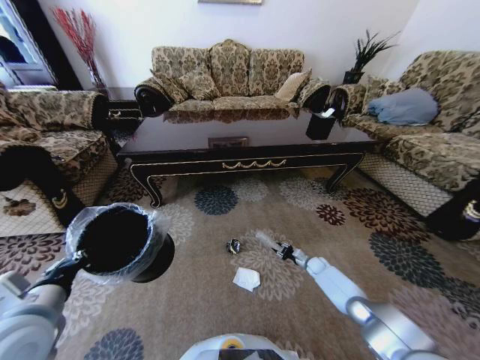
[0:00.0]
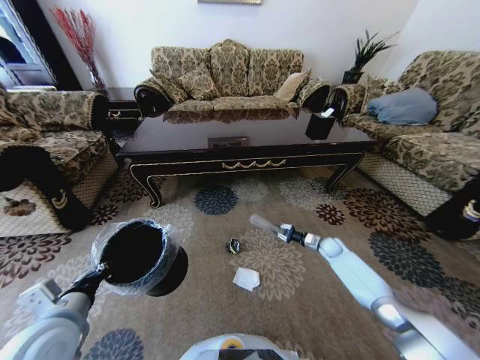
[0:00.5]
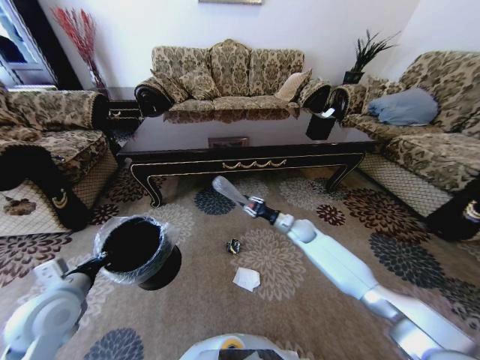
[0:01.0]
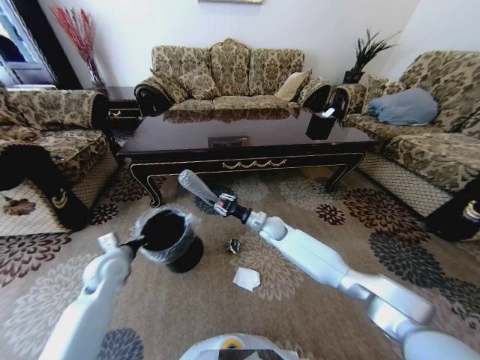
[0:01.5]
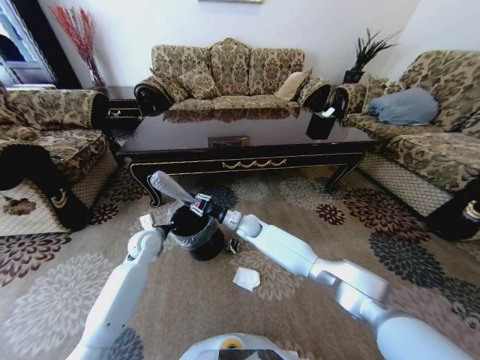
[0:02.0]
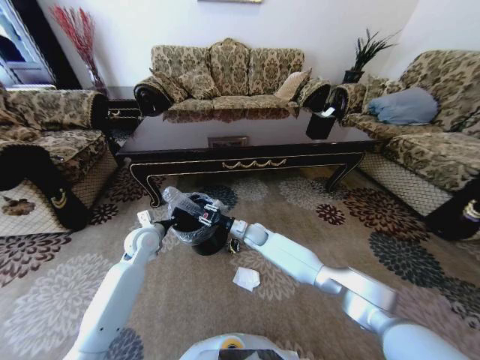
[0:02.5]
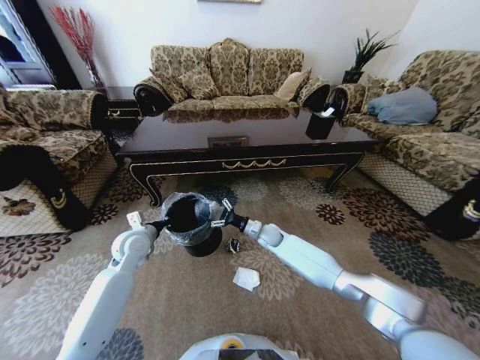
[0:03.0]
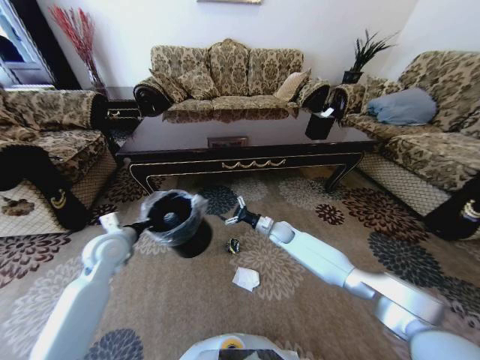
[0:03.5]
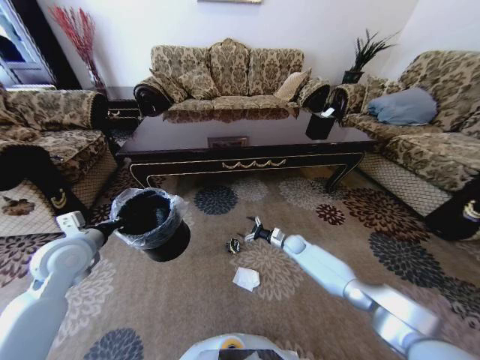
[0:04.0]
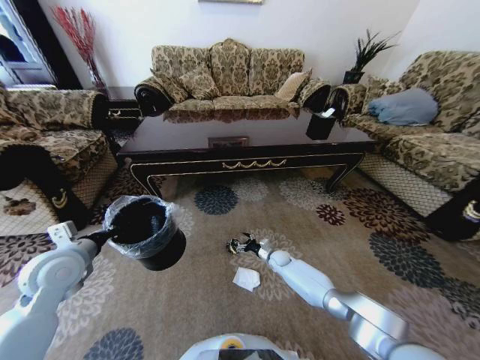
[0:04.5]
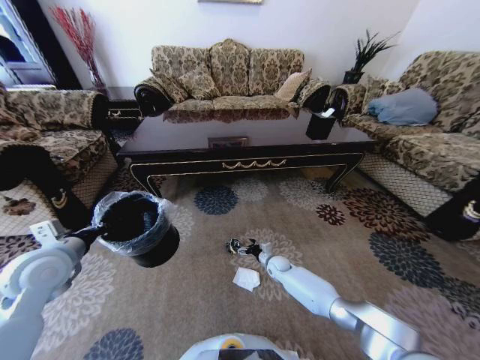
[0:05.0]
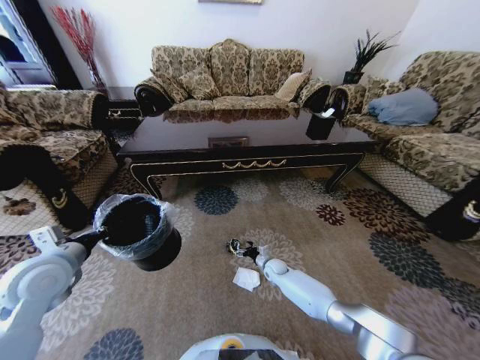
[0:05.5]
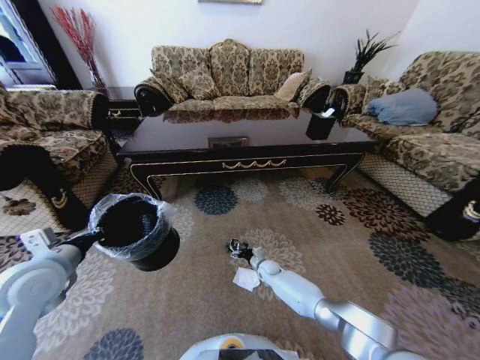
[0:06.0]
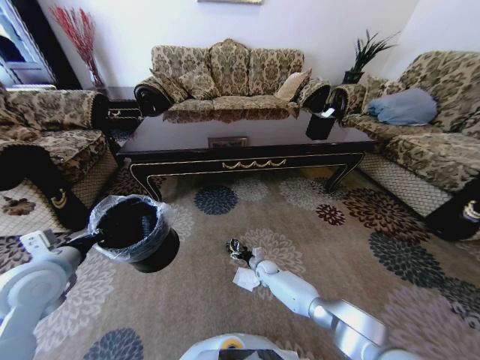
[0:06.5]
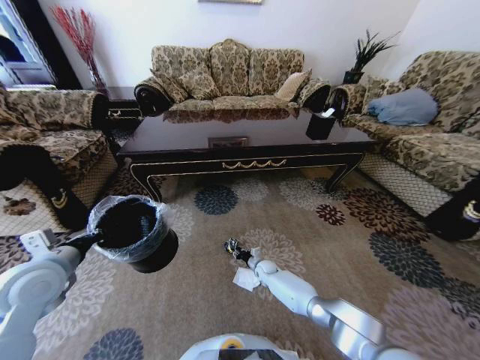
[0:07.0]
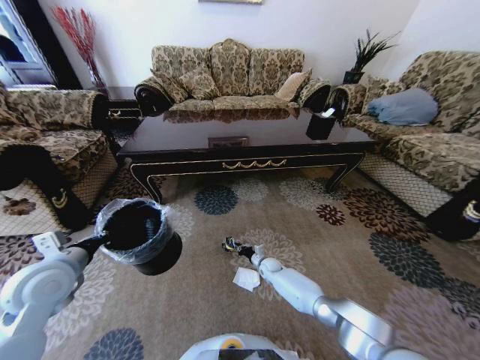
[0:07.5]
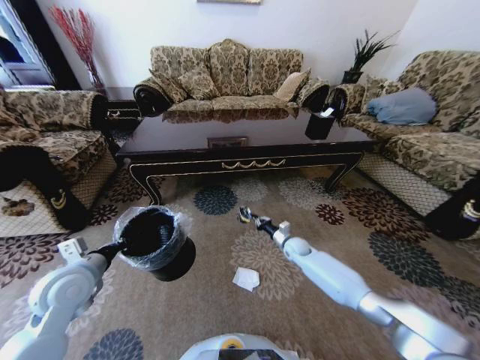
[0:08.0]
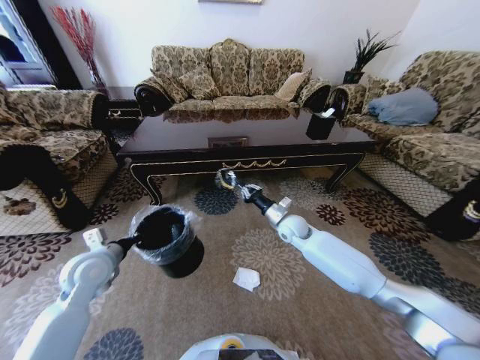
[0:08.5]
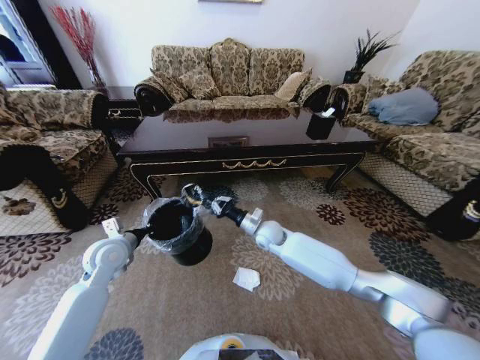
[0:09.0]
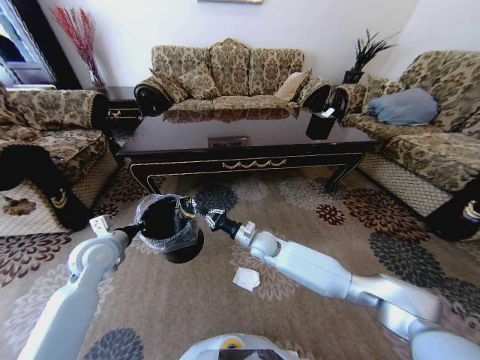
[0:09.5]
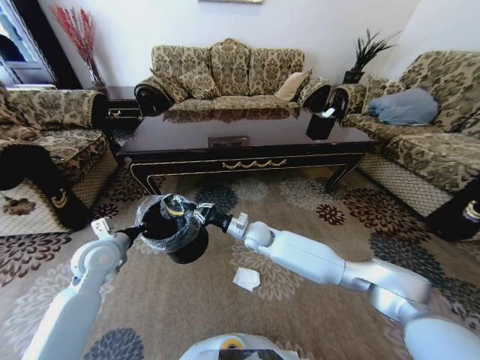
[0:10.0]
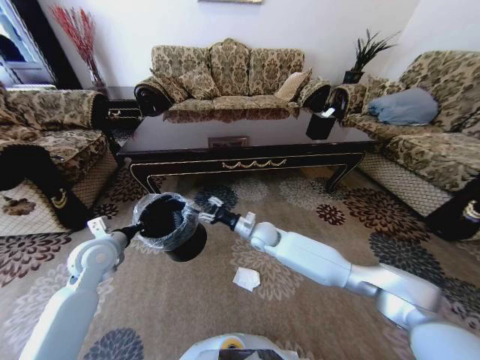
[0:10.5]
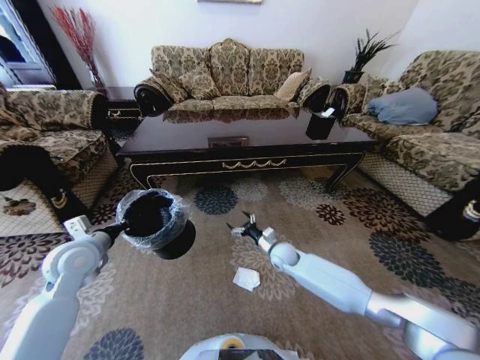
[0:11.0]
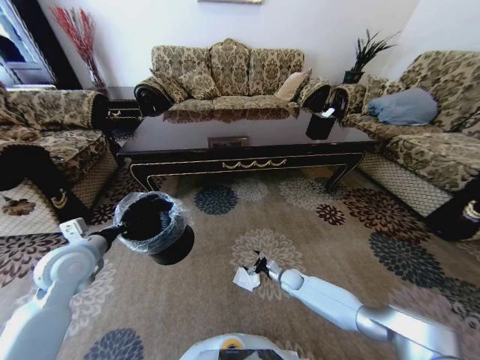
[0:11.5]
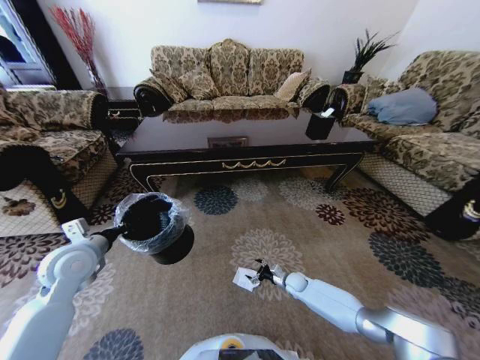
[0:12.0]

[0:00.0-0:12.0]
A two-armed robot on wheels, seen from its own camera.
Task of the whole recording: Move to the front of the table and pick up the trash from the floor, then place it into the trash bin.
0:00.0 to 0:02.0: The right gripper travels to the left and upward by roughly 40 cm, while the left gripper goes approximately 30 cm forward and downward.
0:02.0 to 0:04.0: The right gripper goes about 25 cm to the right and downward, and opens. The left gripper travels upward, backward and to the left by about 20 cm.
0:04.0 to 0:06.0: The left gripper travels backward by roughly 5 cm. Meanwhile the right gripper shifts about 15 cm to the left, downward and backward.
0:06.0 to 0:08.0: The left gripper ends up about 5 cm from where it was. The right gripper shifts roughly 15 cm upward and to the right, and closes up.
0:08.0 to 0:10.0: The left gripper moves forward, roughly 10 cm, while the right gripper is displaced to the left and upward by about 25 cm.
0:10.0 to 0:12.0: The right gripper goes some 35 cm downward and to the right, and opens.

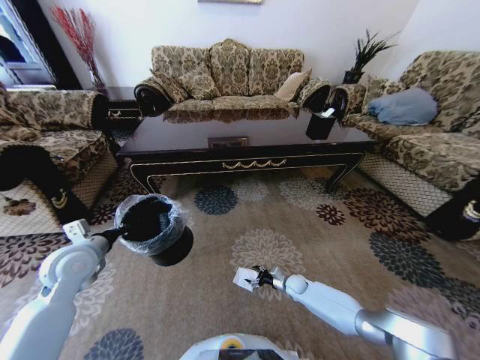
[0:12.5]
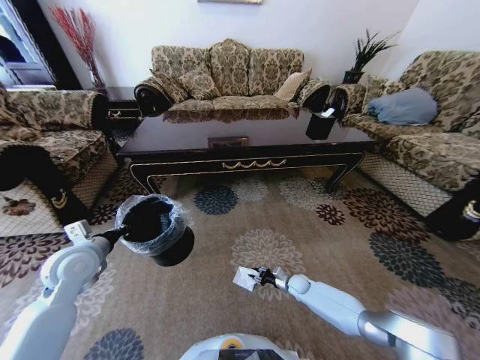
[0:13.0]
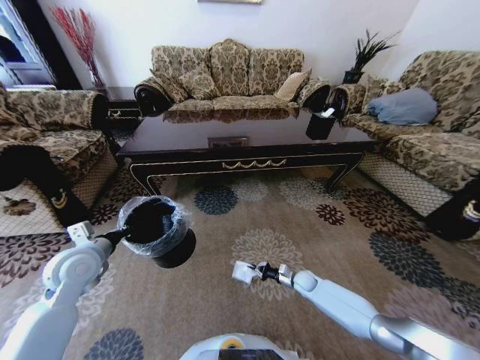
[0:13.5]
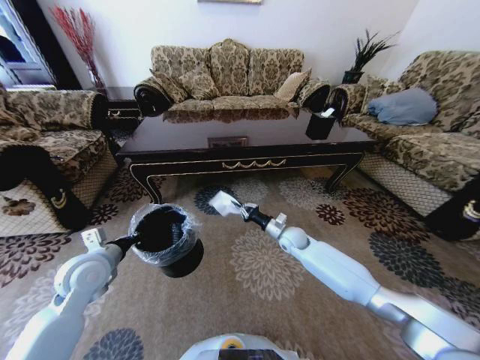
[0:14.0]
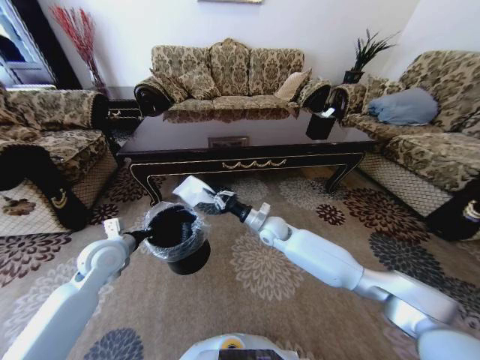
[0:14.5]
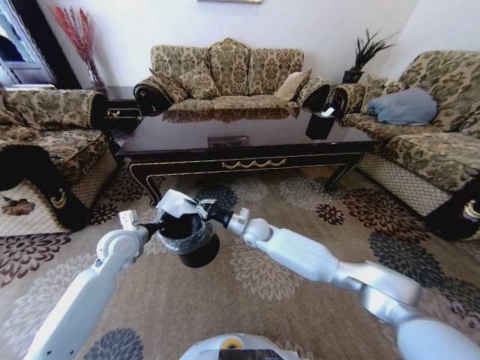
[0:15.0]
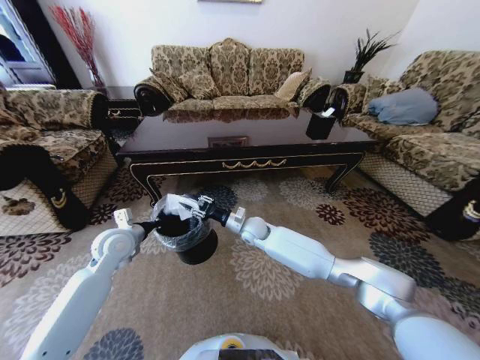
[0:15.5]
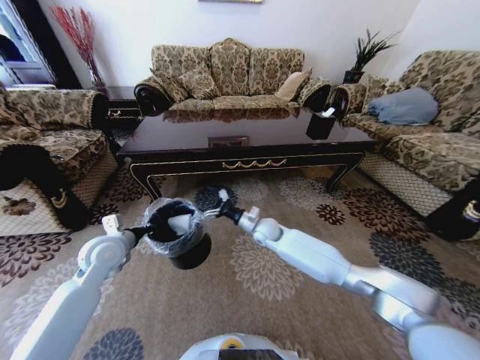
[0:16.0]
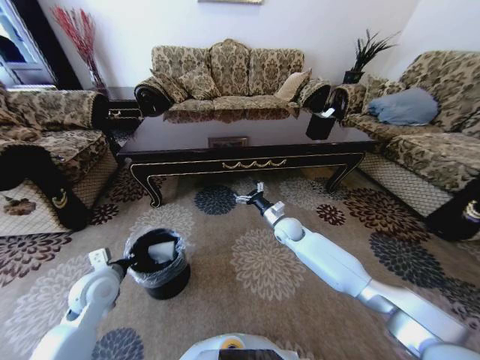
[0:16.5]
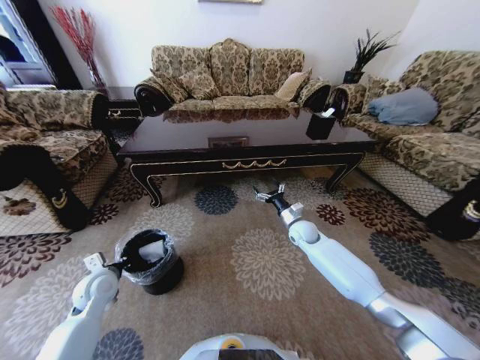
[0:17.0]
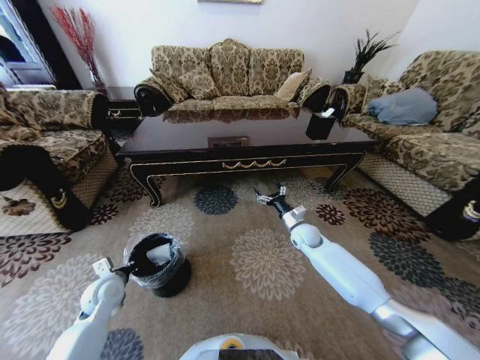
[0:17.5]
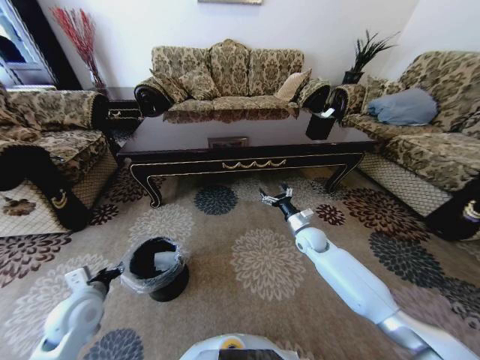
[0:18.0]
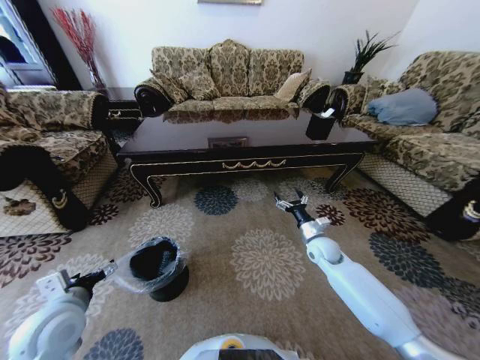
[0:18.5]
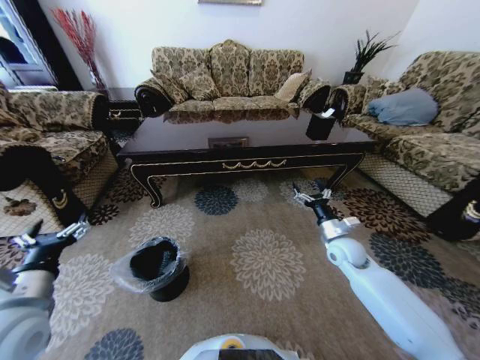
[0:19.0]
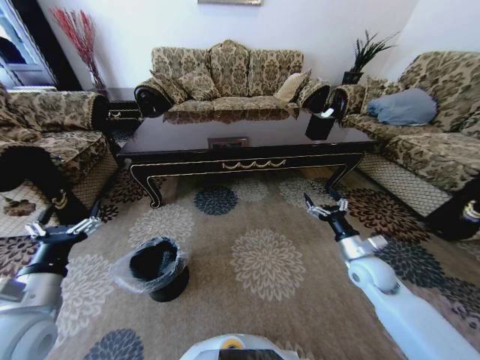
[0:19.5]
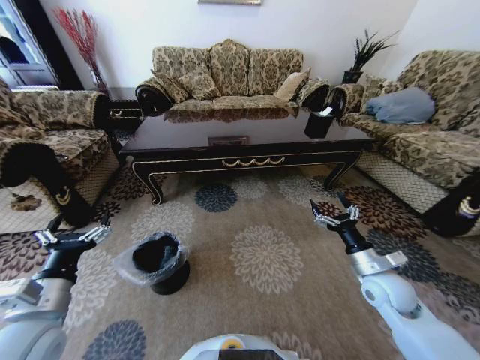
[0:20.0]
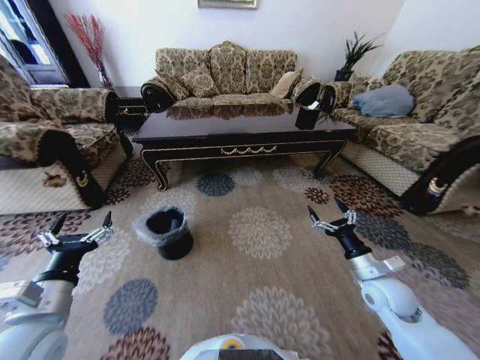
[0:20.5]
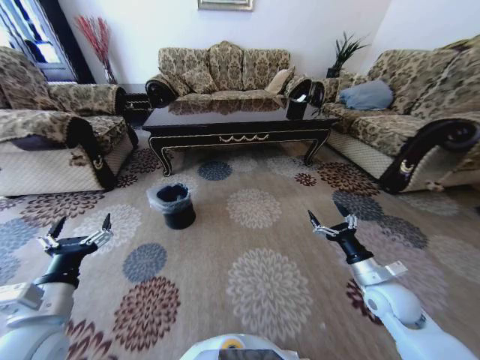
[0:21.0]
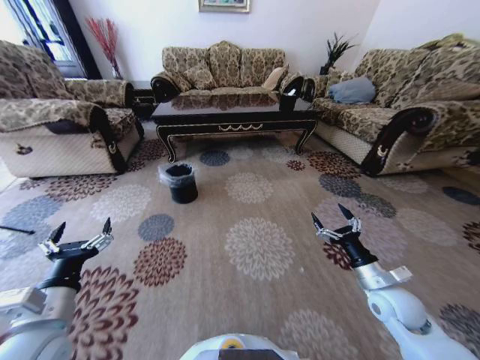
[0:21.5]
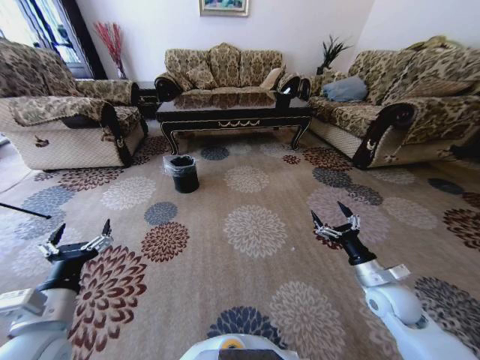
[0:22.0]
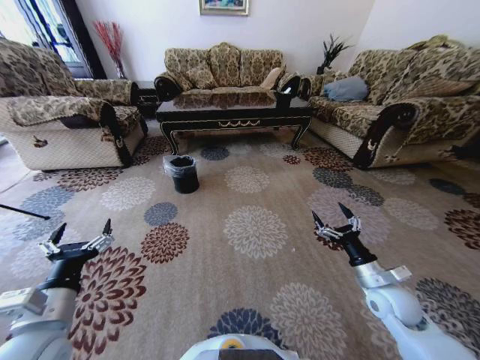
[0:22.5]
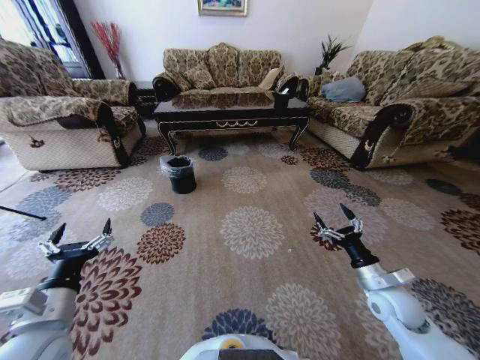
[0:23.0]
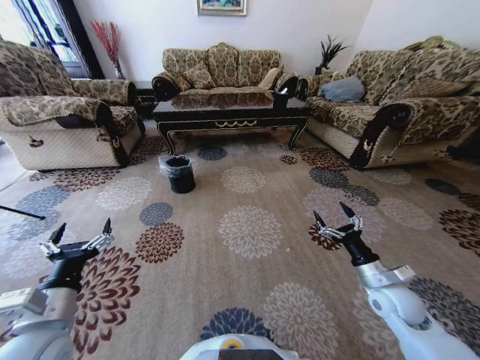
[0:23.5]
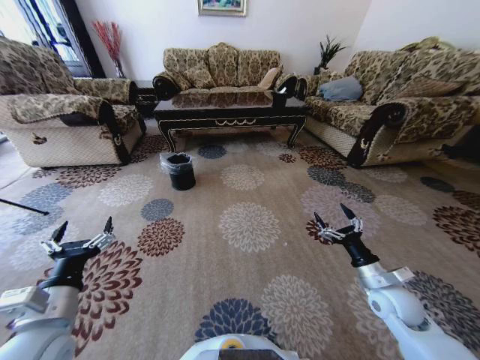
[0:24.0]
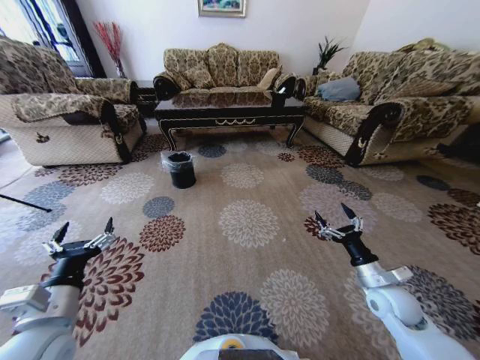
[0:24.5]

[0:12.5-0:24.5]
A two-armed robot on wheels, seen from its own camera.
Task of the whole recording: Move to the front of the table and pick up the trash from the floor, then place it into the trash bin.
0:12.5 to 0:14.5: The left gripper changes place by some 5 cm. Meanwhile the right gripper goes roughly 30 cm upward and to the left, and closes its fingers.
0:14.5 to 0:16.5: The right gripper goes roughly 5 cm to the right, and opens its fingers, while the left gripper travels downward and backward by some 10 cm.
0:16.5 to 0:18.5: The left gripper travels backward by about 10 cm, and opens its fingers; the right gripper moves to the right and backward, some 10 cm.
0:18.5 to 0:20.5: The left gripper ends up roughly 5 cm from where it was. Meanwhile the right gripper shifts approximately 15 cm backward and to the right.

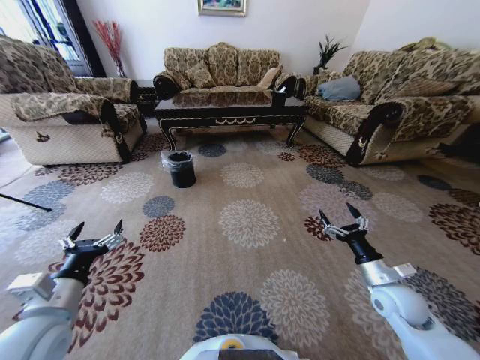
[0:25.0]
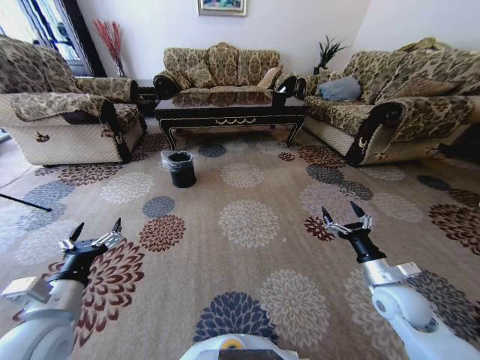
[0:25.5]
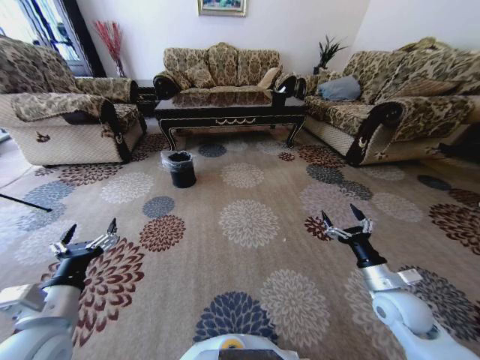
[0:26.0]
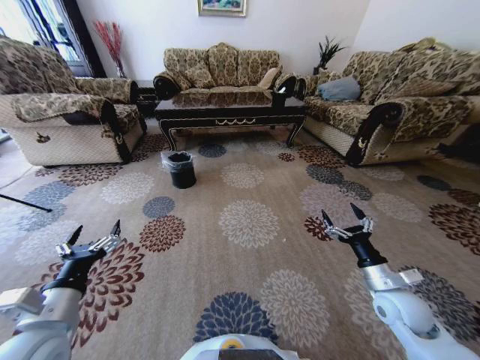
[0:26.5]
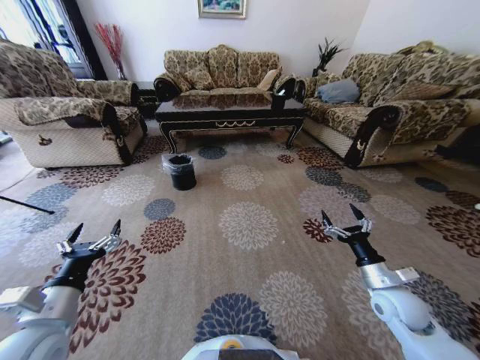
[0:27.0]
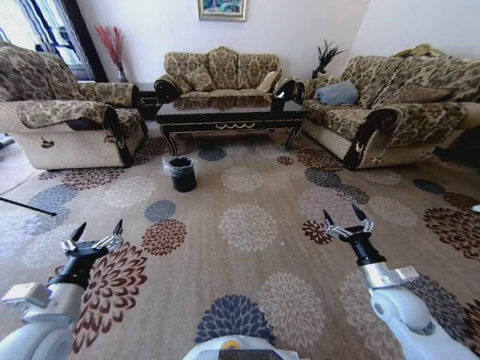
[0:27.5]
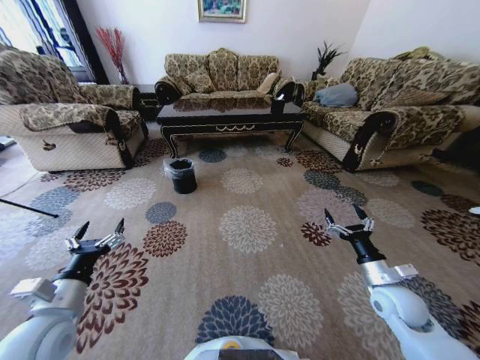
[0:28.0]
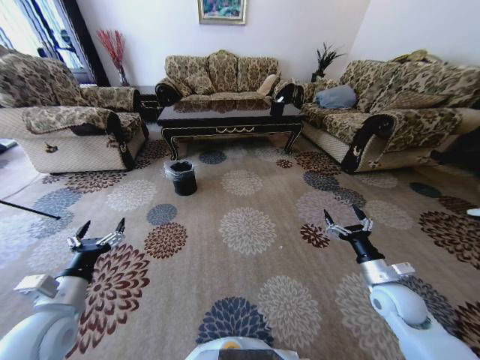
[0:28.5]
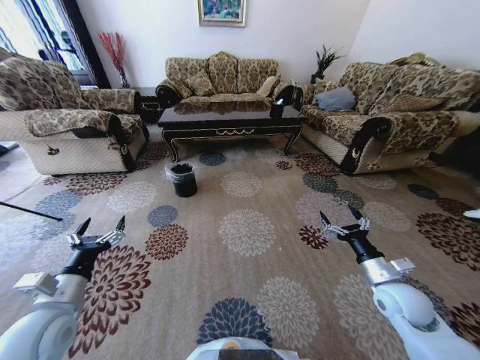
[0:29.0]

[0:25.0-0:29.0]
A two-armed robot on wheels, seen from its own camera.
Task of the whole recording: Move to the front of the table and pick up the trash from the floor, then place it into the trash bin.
0:25.0 to 0:27.0: The grippers move only a little.
